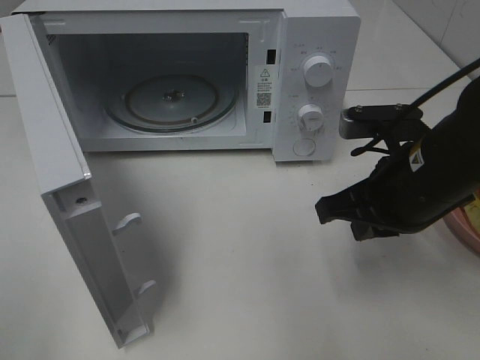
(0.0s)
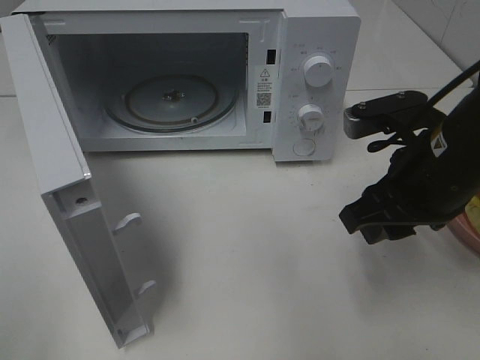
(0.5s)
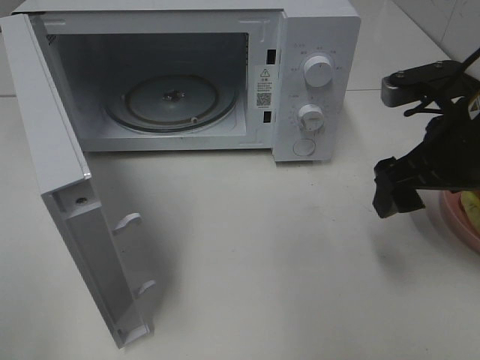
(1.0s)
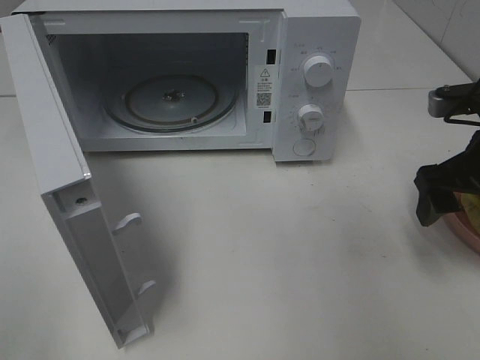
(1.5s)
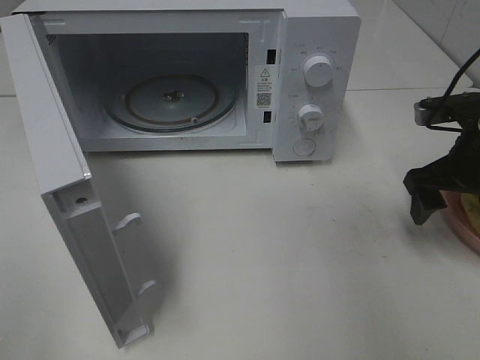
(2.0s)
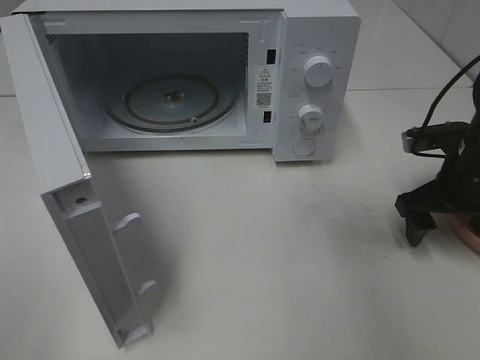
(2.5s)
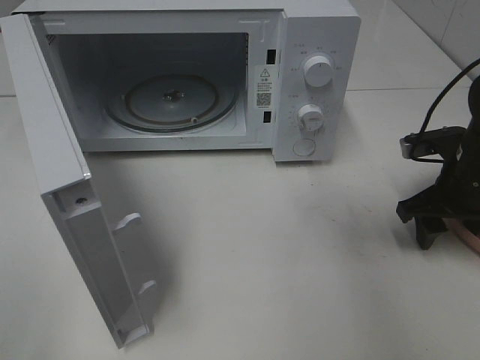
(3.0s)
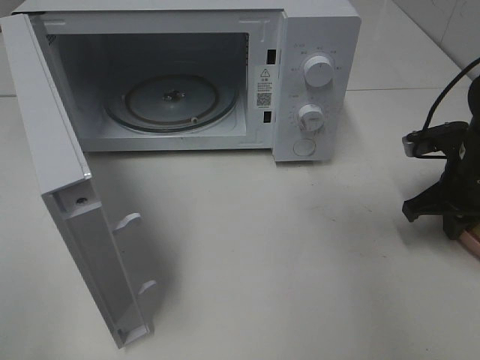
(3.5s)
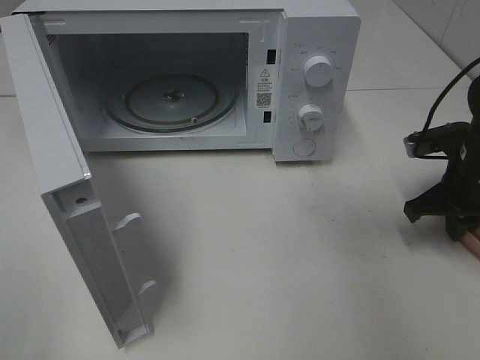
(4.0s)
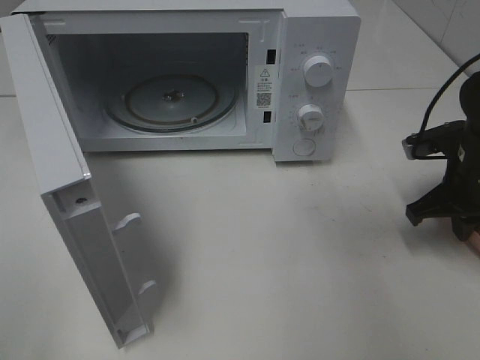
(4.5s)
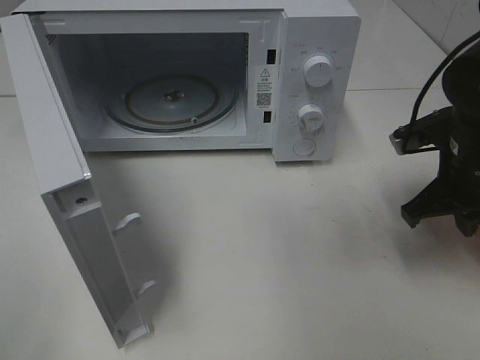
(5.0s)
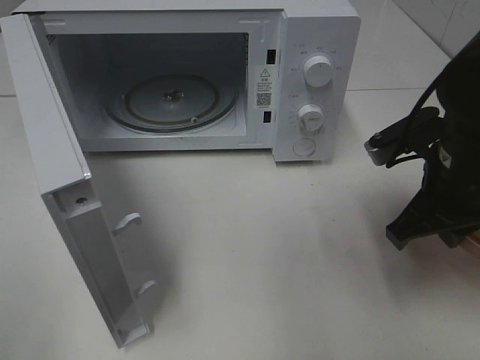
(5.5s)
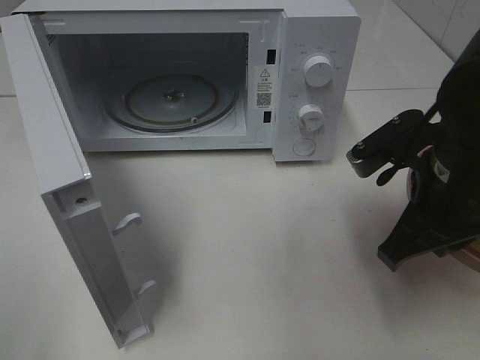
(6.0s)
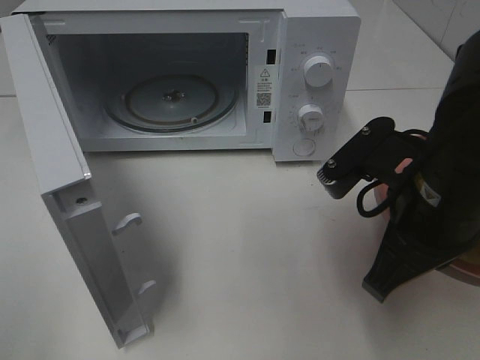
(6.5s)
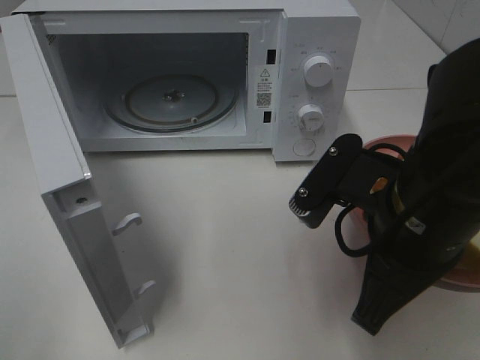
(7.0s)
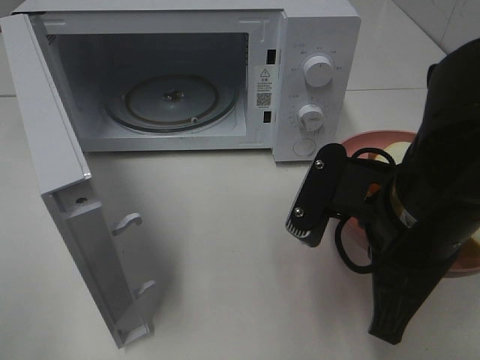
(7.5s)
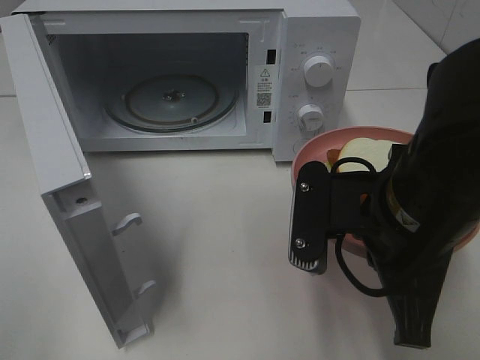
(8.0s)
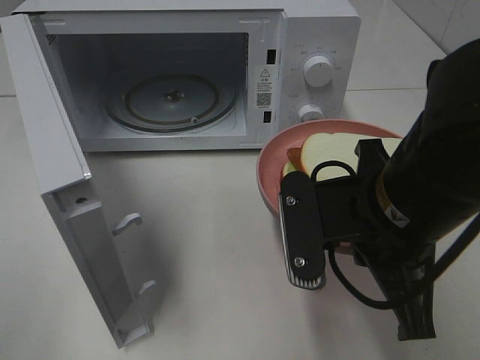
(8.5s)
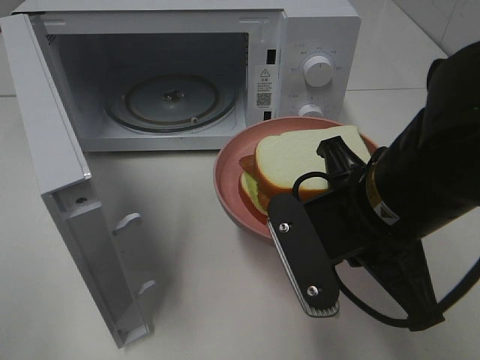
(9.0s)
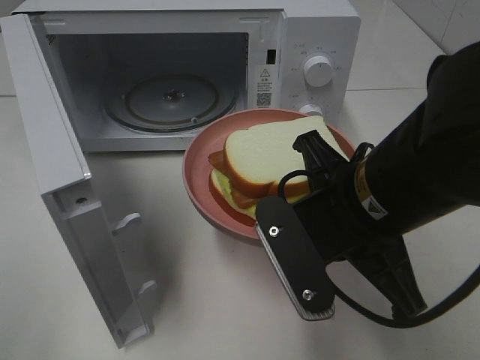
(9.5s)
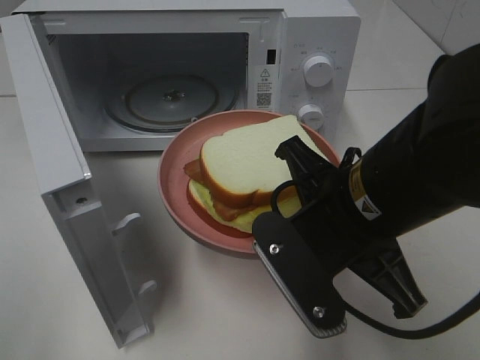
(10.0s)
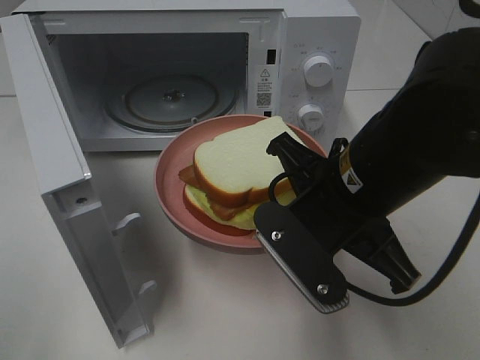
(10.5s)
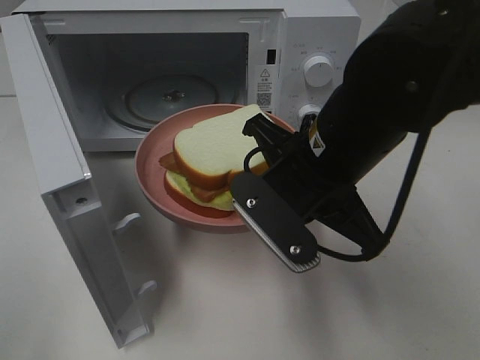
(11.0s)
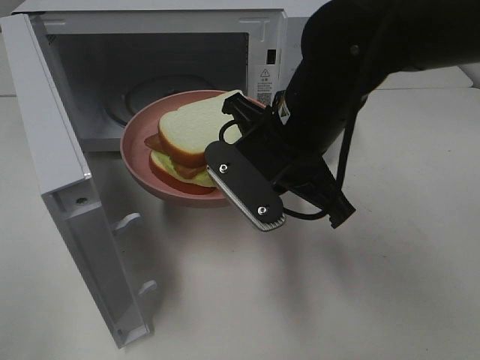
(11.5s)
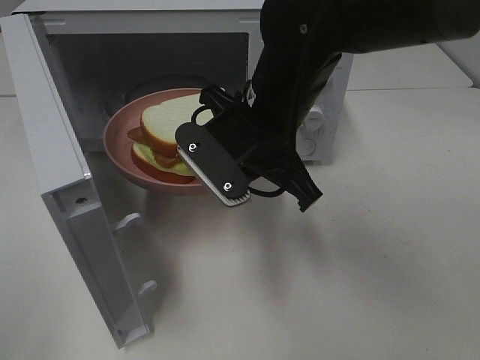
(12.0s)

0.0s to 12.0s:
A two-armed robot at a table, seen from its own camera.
Task of the whole recording: Heat Sandwich.
Step, 0.0s to 3.5s: Right hand: grab the plate with the sandwich.
0.0s to 2.0s: The right gripper moves to the right and forward, approximately 15 cm, and opens its fingers.
2.0s to 4.0s: The right gripper closes its fingers.
4.0s to 6.0s: The right gripper travels to the left, backward and upward by approximately 15 cm.
6.0s to 8.0s: The right gripper moves to the left, roughly 5 cm.
10.0s to 12.0s: The right gripper moves forward and to the left, roughly 15 cm.

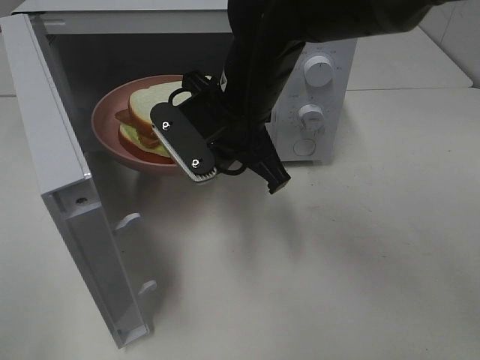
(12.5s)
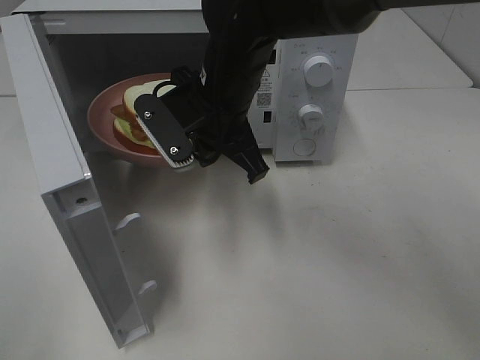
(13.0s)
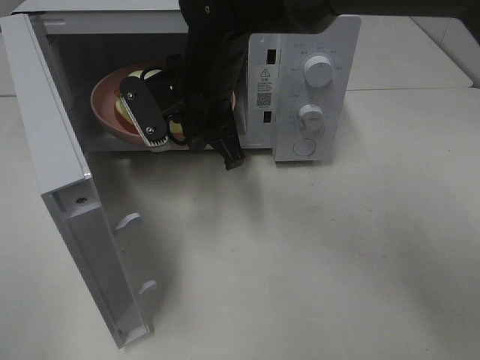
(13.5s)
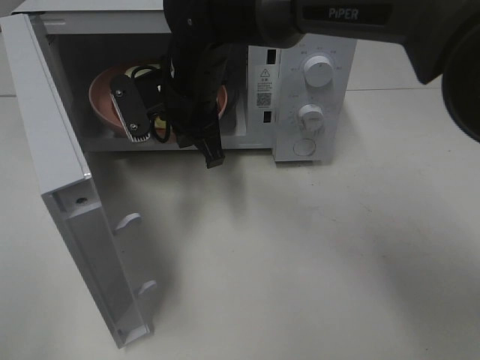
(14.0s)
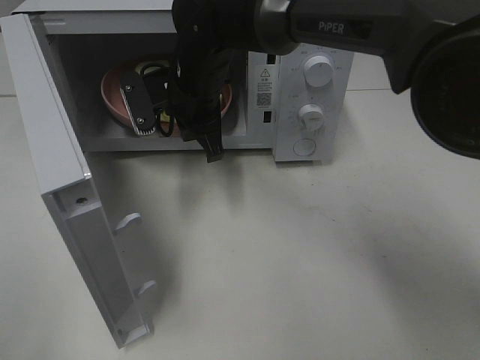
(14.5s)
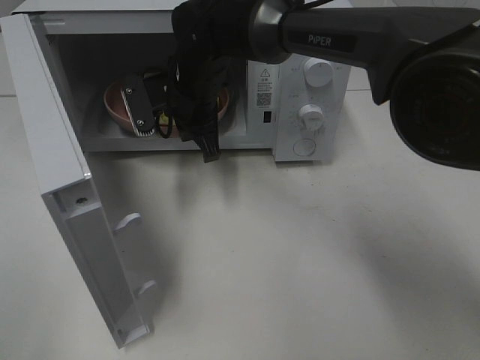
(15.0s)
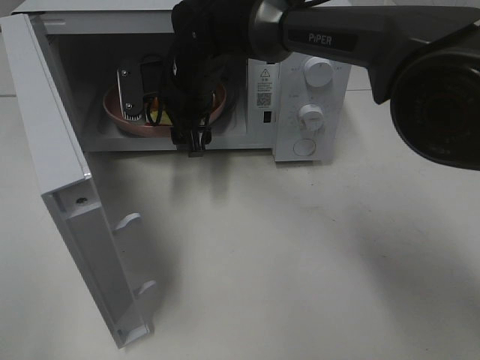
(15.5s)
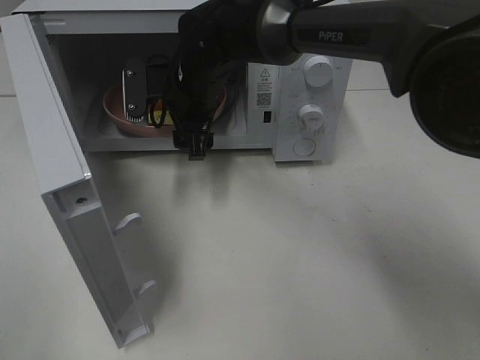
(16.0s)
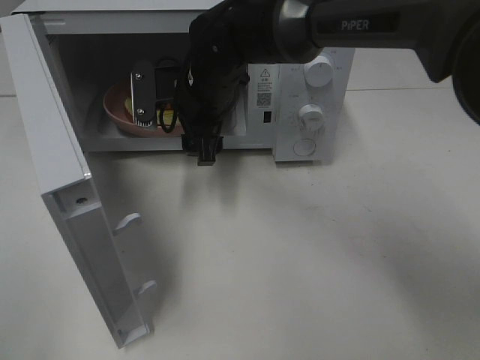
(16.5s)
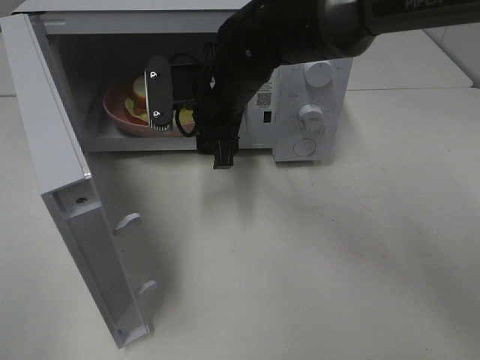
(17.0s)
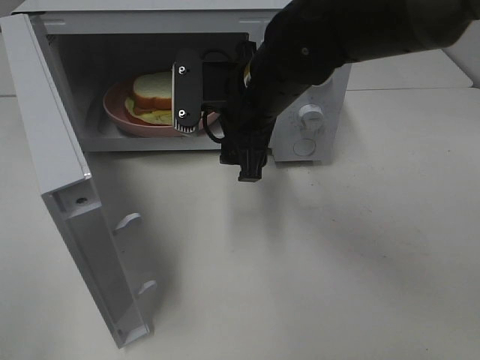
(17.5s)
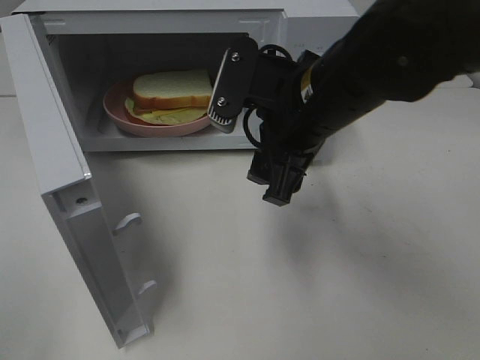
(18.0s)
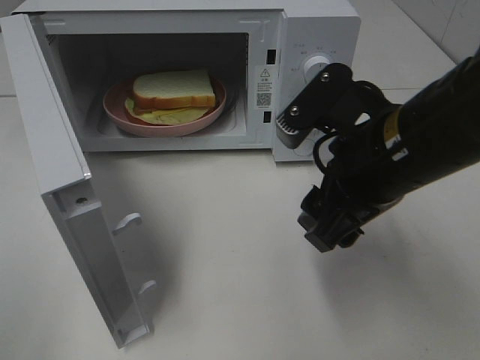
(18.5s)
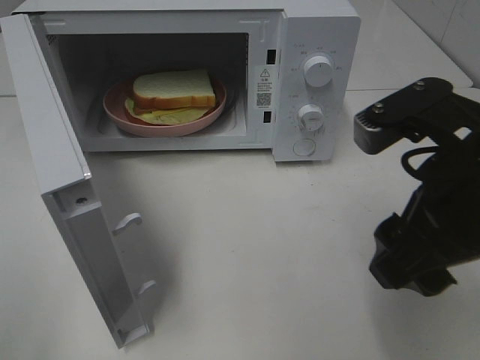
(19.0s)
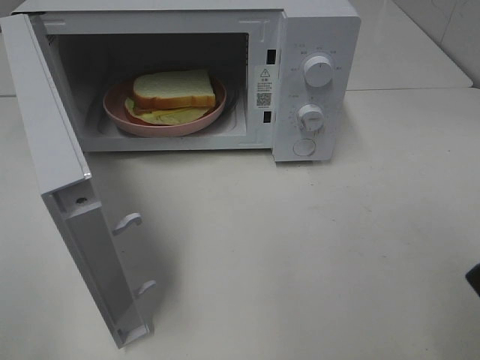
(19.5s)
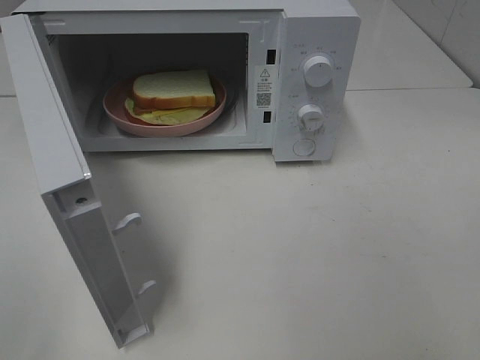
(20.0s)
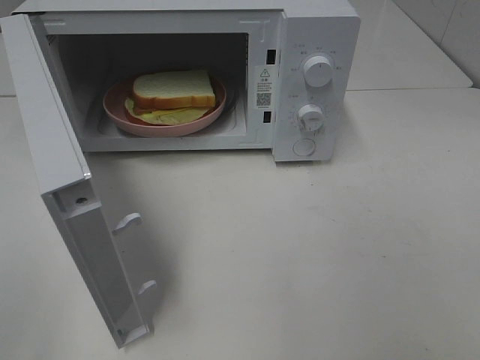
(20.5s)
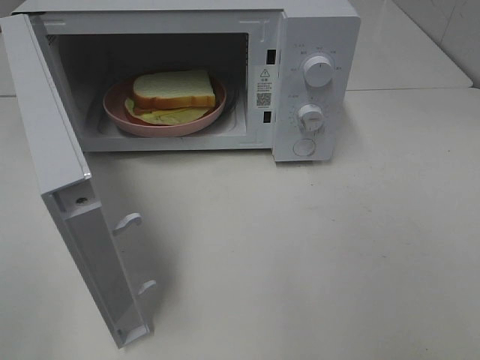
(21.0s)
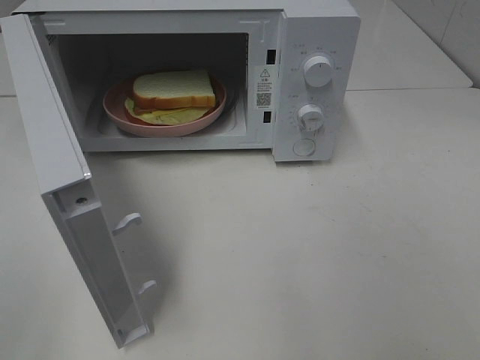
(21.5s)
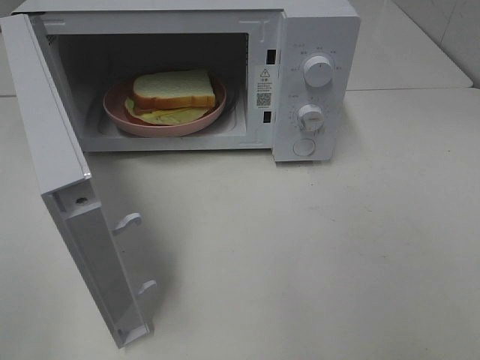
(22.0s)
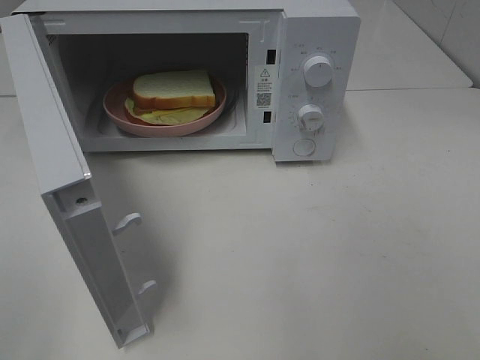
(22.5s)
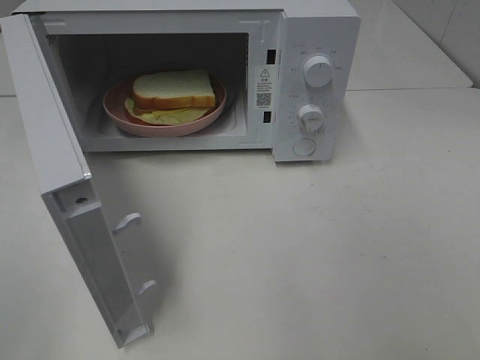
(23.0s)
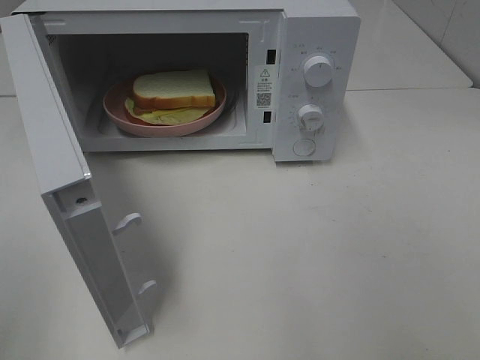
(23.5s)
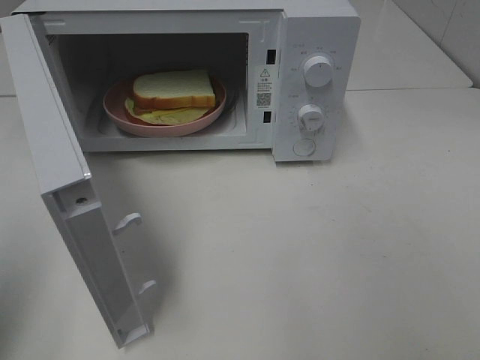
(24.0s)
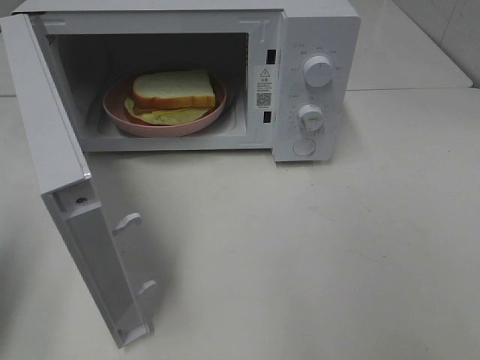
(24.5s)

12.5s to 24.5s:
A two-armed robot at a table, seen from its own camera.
Task of the whole recording: Heat Sandwich.
Step, 12.5s to 16.0s: Right hand: place the plate in the microwave.
12.5s to 14.5s: The right gripper travels forward by some 10 cm.
14.5s to 16.5s: The right gripper opens up.
16.5s to 18.5s: The right gripper is displaced backward and to the right by some 25 cm.
18.5s to 20.5s: The right gripper moves backward and to the right, roughly 25 cm.
22.5s to 24.5s: The left gripper goes about 15 cm forward, and closes up.

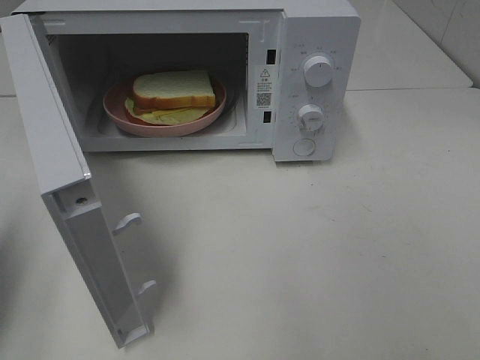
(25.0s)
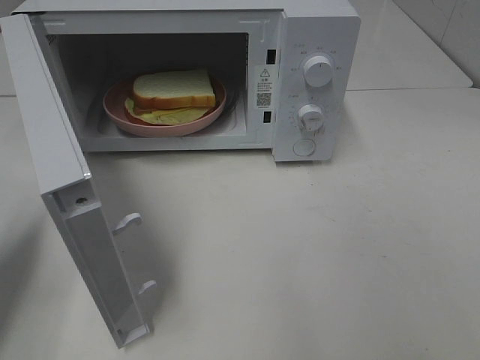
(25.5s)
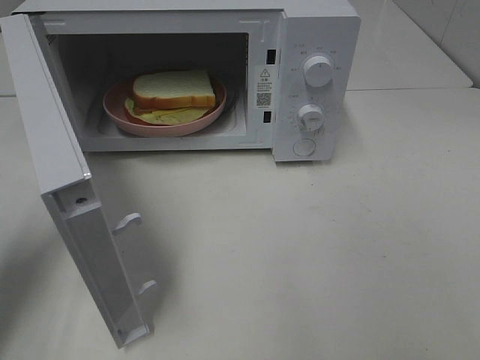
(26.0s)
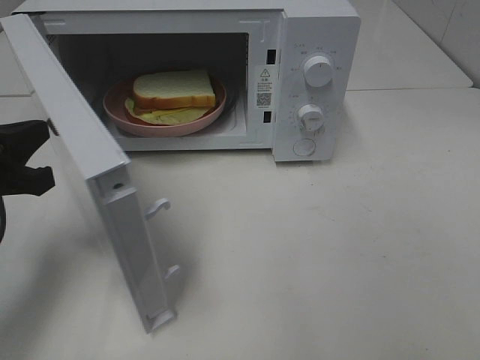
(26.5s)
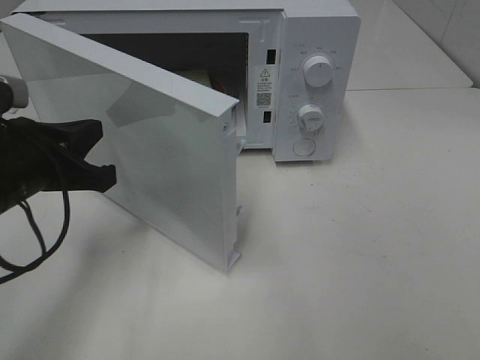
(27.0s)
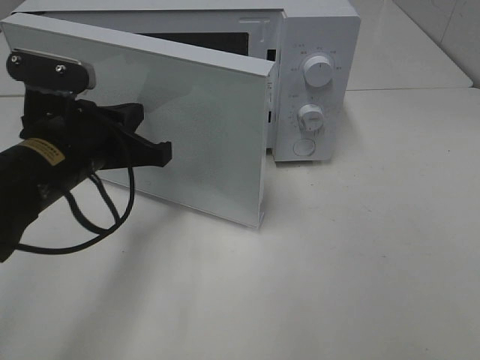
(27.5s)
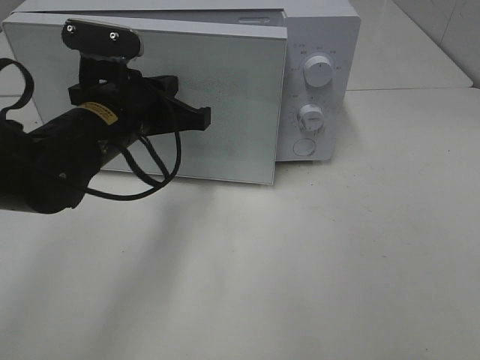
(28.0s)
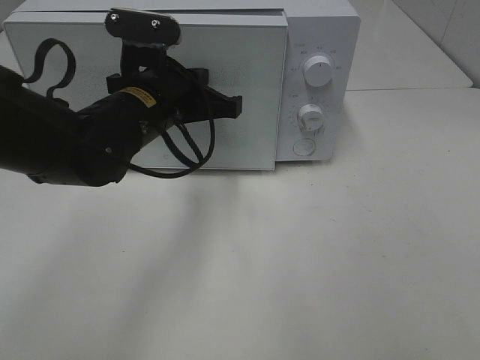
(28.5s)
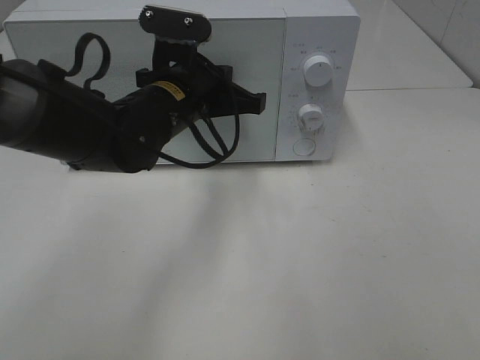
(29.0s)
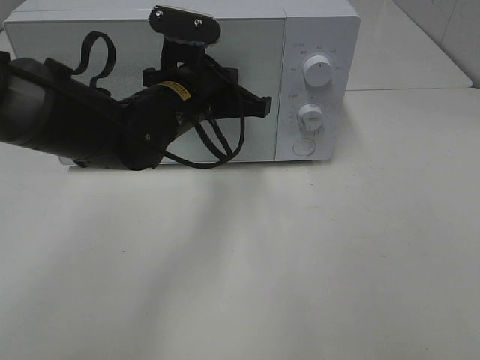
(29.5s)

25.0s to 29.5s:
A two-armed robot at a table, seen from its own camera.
Task of the whole recording: Heat Sandwich.
25.0s to 27.0s: The left gripper moves to the right, forward and downward, about 15 cm.
27.0s to 29.5s: The left gripper is displaced to the right and forward by approximately 20 cm.
